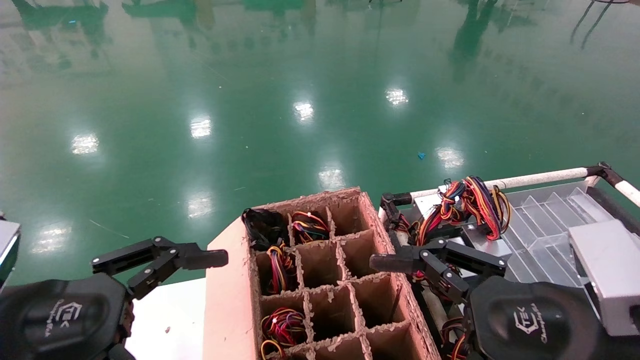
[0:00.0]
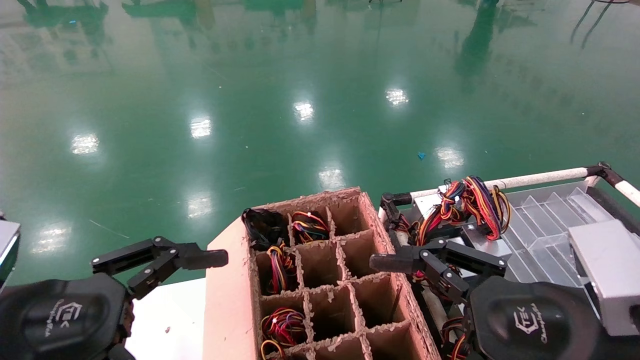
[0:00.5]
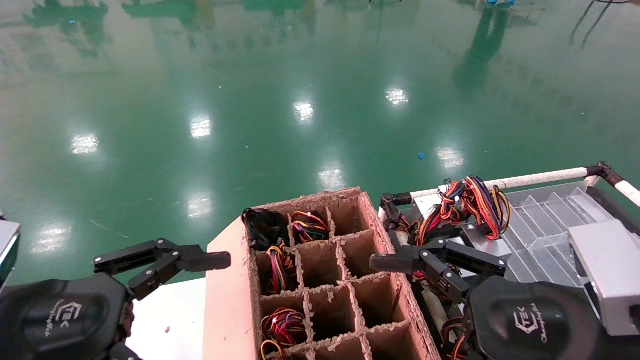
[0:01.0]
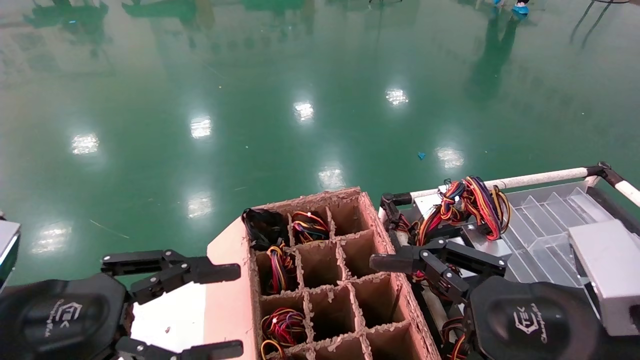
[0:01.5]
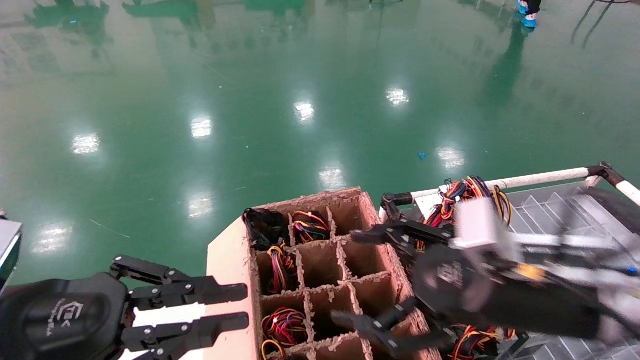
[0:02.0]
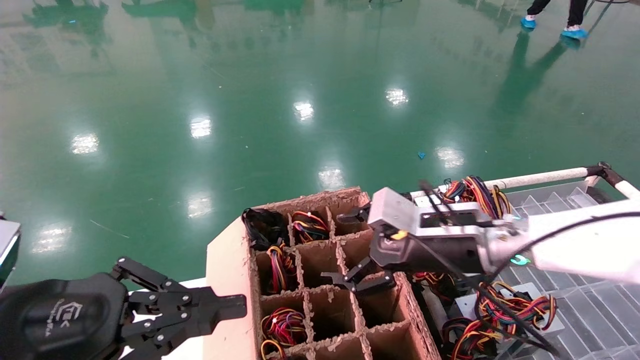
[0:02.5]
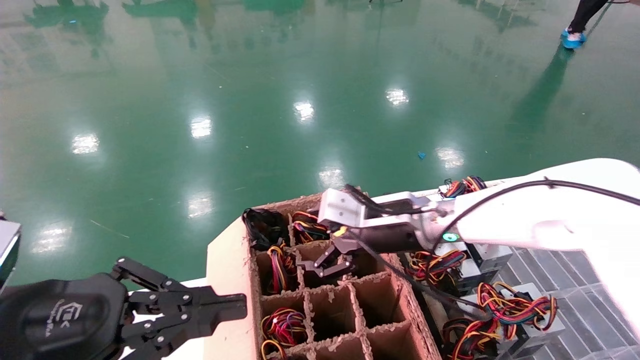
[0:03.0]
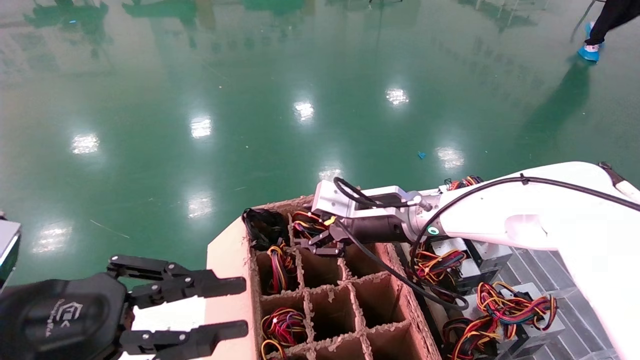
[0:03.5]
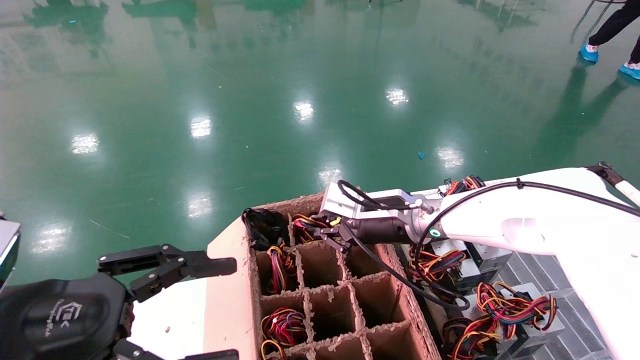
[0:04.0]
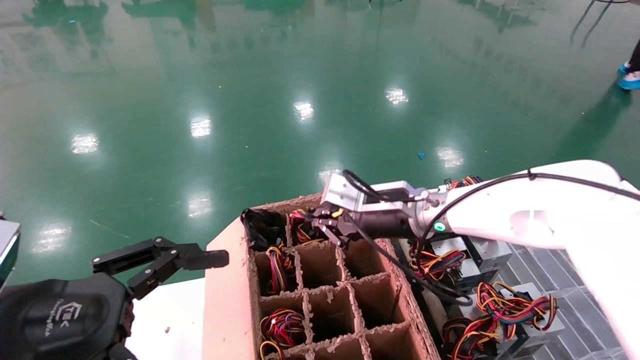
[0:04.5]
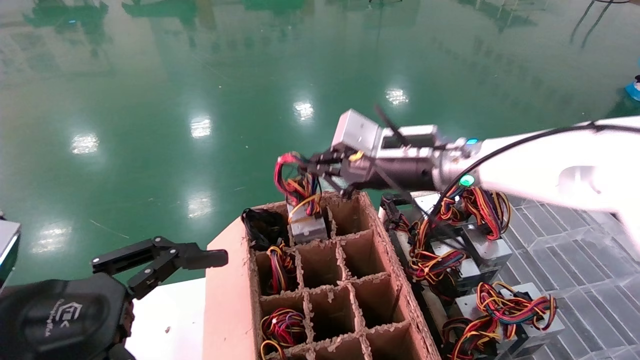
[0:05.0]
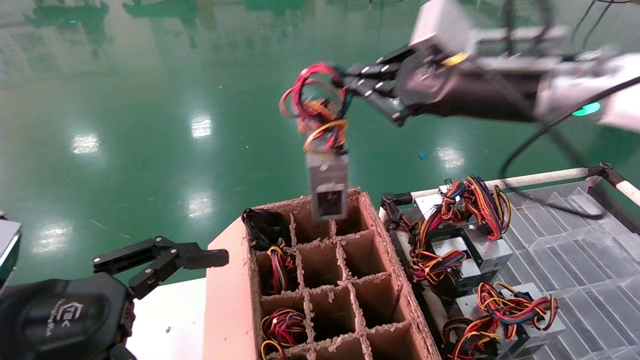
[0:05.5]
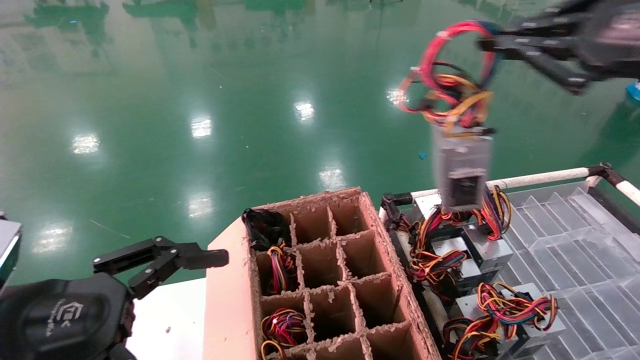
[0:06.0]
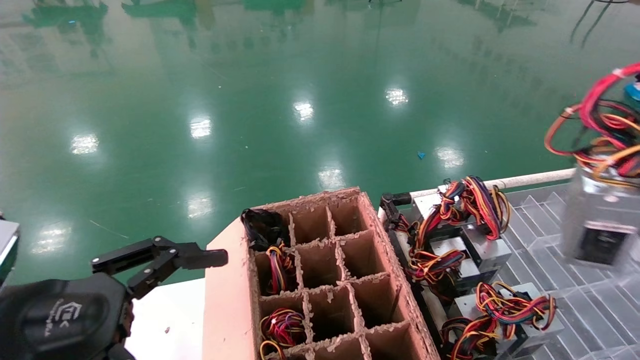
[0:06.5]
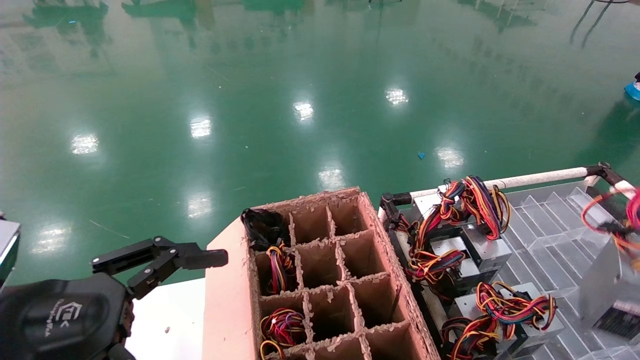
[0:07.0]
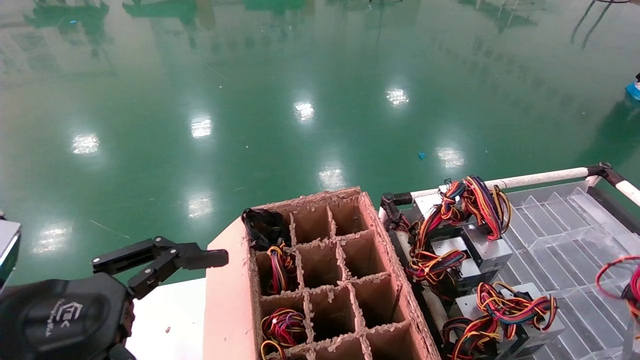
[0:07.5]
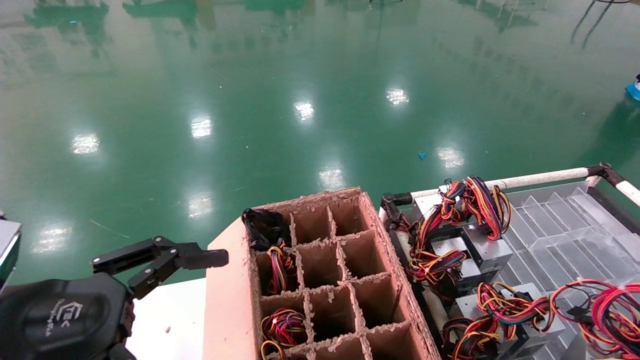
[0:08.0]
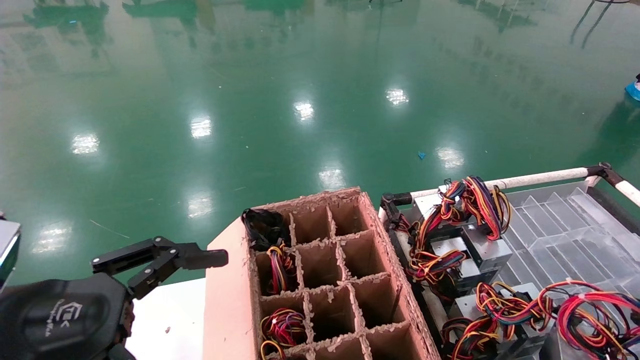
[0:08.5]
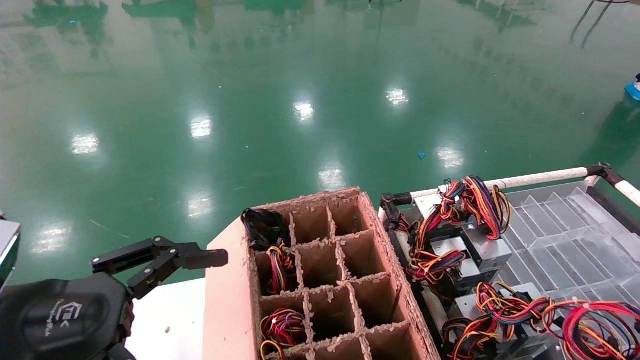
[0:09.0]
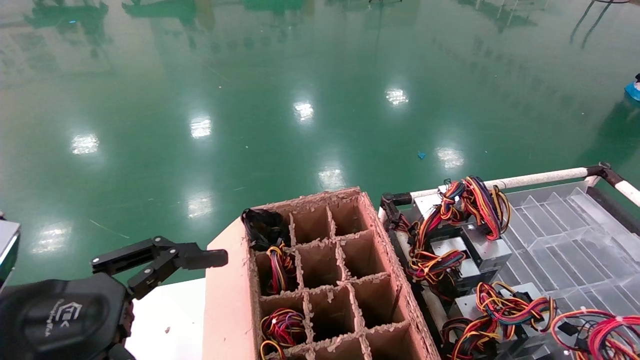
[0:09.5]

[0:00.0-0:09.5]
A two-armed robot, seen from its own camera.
Step, 0:01.5 to 0:04.0: Grab and lift the power supply from the large box.
0:00.0 to 0:02.0: The left gripper closes up; the right gripper heads forward, covering approximately 10 cm.
0:02.0 to 0:04.0: The right gripper shifts about 20 cm forward and to the left, and closes up.
0:04.0 to 0:05.5: The left gripper opens. The right gripper moves upward, backward and to the right, approximately 25 cm.
0:05.5 to 0:07.5: The right gripper heads to the right, backward and downward, covering approximately 40 cm.
0:07.5 to 0:09.5: The right gripper moves downward, some 5 cm.

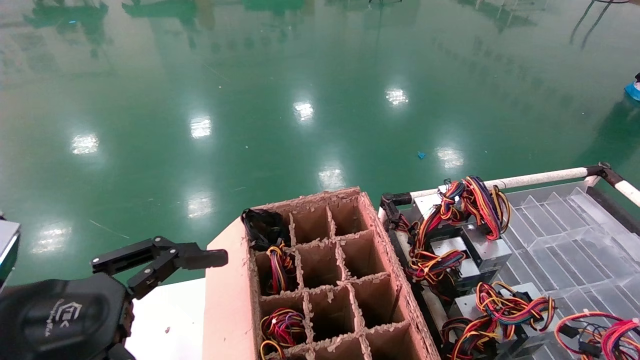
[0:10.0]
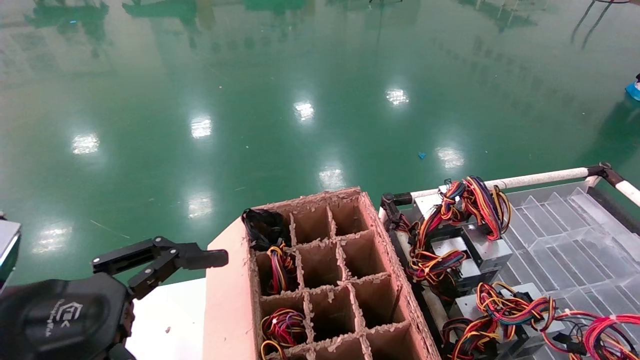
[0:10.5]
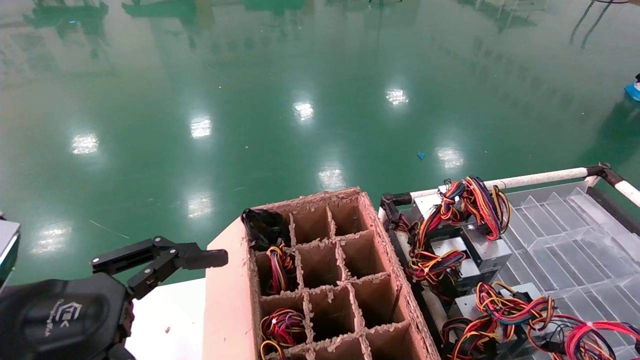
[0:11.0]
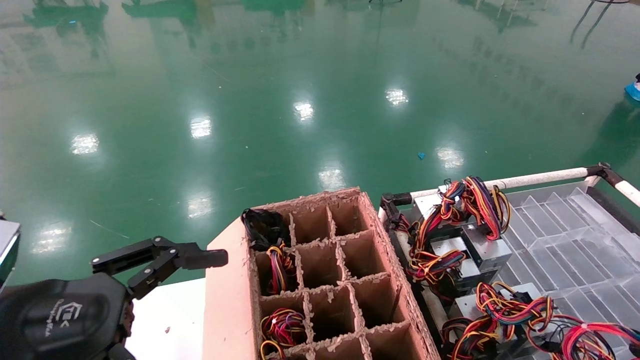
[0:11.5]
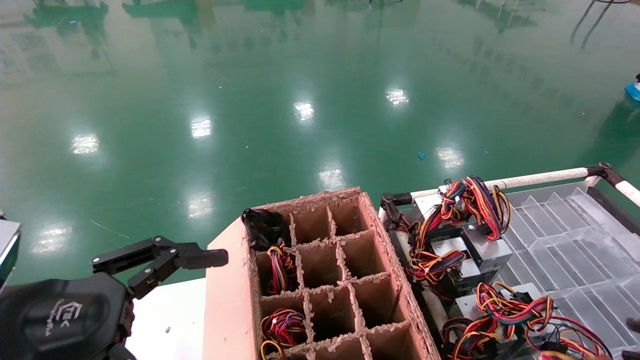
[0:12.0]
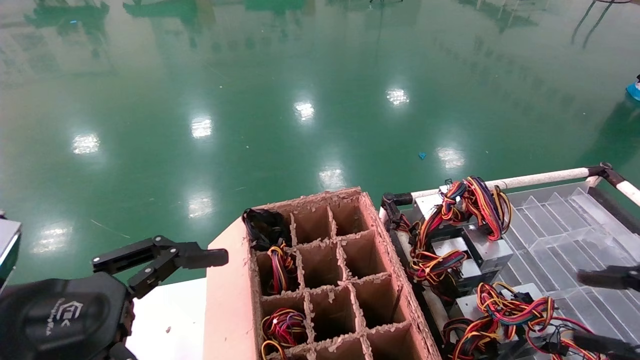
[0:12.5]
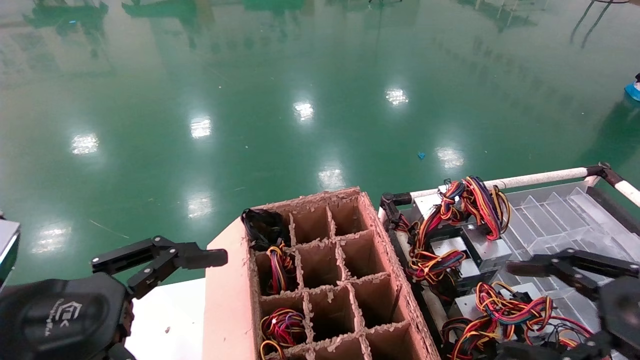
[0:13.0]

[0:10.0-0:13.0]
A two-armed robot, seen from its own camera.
0:10.0 to 0:11.5: The right gripper changes place by approximately 5 cm.
0:11.5 to 0:13.0: The right gripper is displaced to the left by some 10 cm, and opens its fingers.

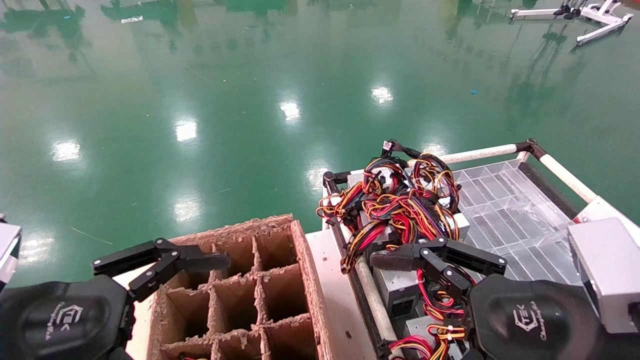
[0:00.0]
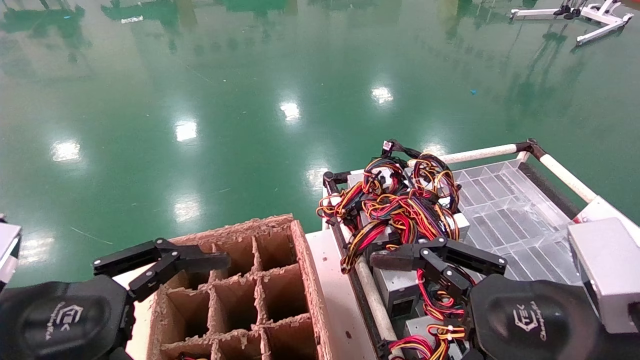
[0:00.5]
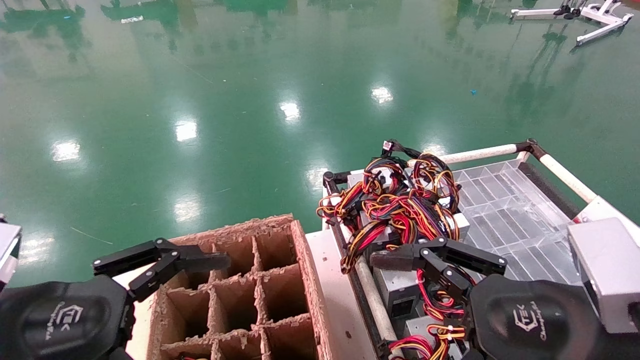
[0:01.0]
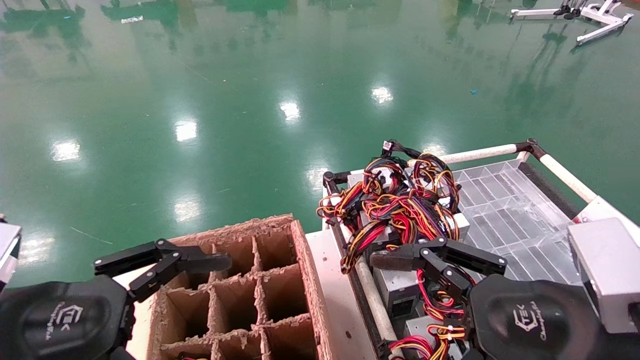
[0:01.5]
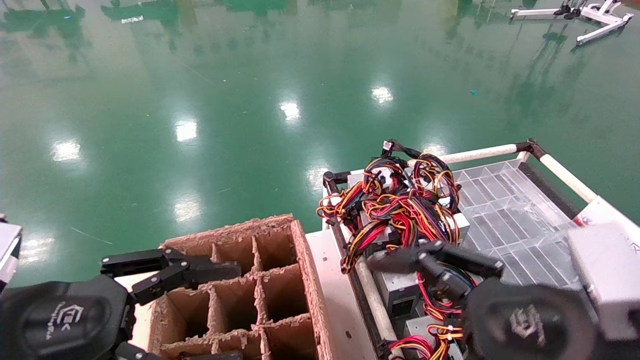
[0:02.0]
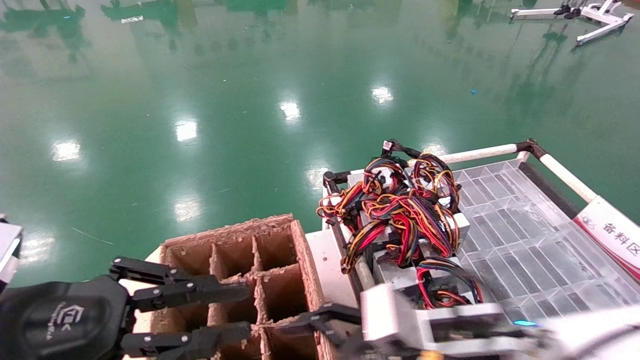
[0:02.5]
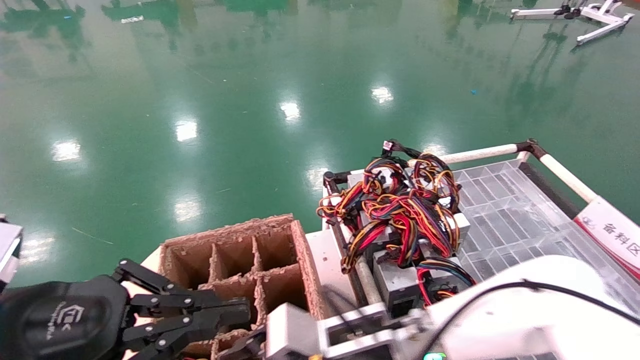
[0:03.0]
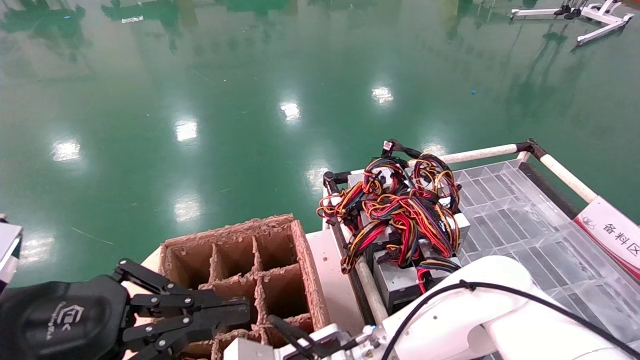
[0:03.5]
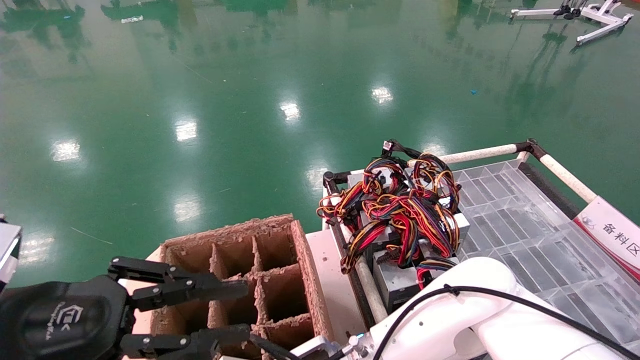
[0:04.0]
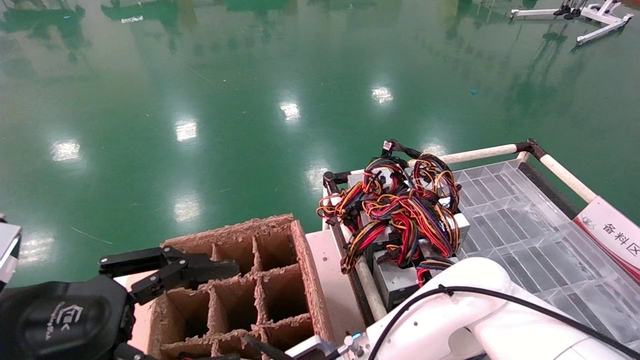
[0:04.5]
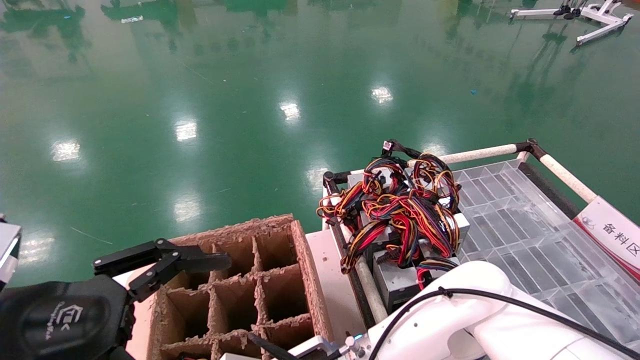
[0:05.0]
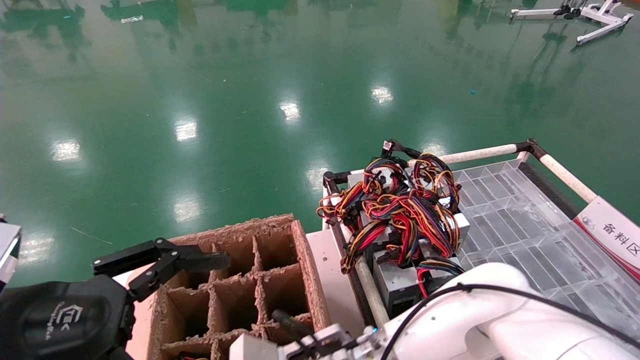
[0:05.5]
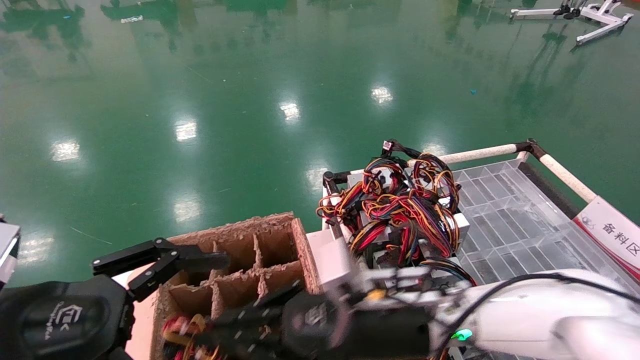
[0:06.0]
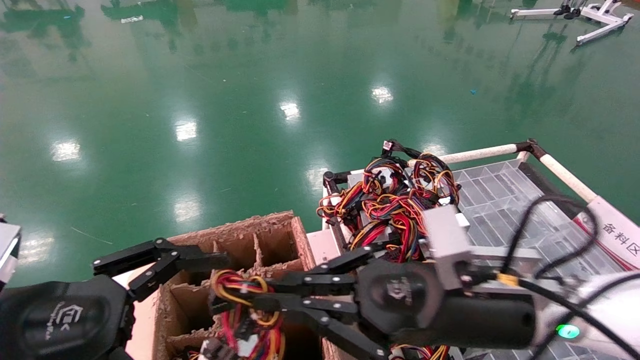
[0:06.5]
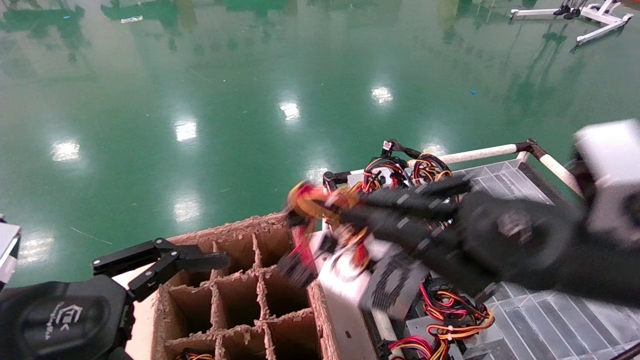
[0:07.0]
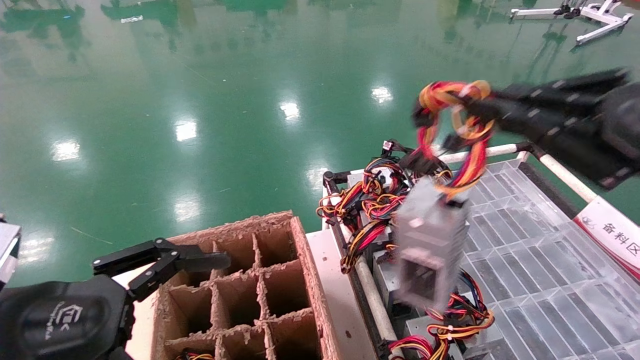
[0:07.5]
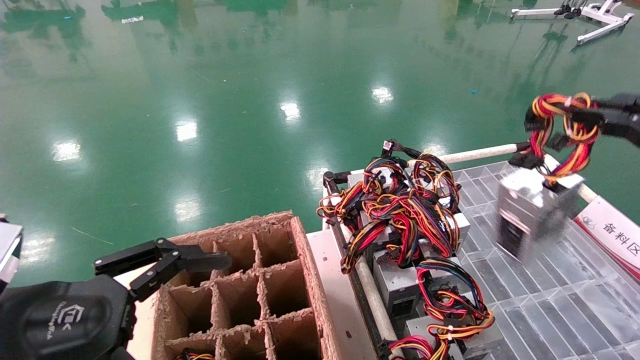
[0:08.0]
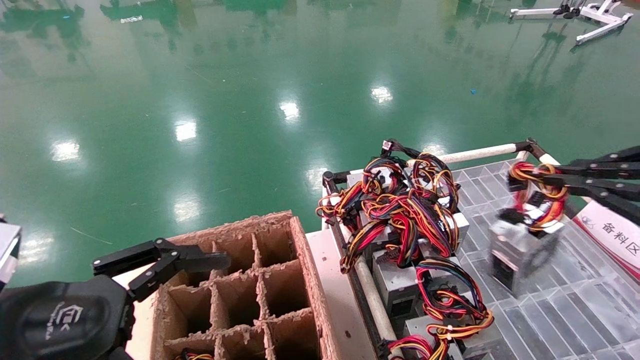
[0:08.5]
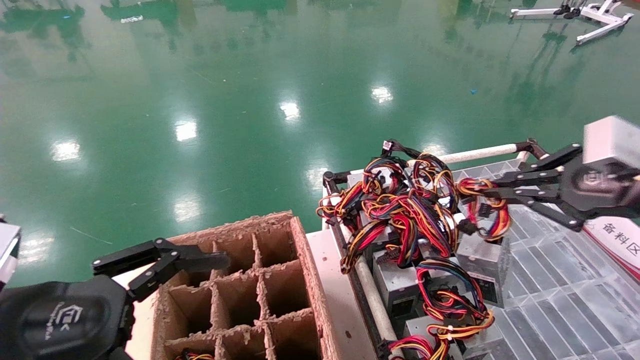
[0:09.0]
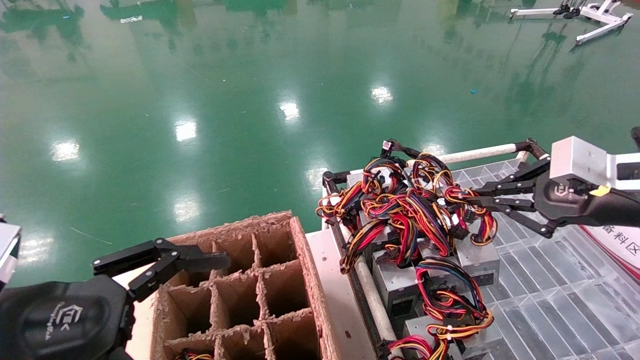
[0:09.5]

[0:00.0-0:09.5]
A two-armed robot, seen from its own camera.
Step, 0:02.0 to 0:05.0: Grab and lift the power supply from the large box.
0:00.0 to 0:02.0: The grippers stay close to where they were, moving slightly.
0:02.0 to 0:04.0: The right gripper moves to the left, downward and forward, about 30 cm, while the left gripper closes.
0:04.0 to 0:05.5: The right gripper closes, while the left gripper opens.
0:05.5 to 0:07.5: The right gripper is displaced to the right and upward by some 40 cm.
0:07.5 to 0:09.5: The right gripper is displaced forward by approximately 10 cm.
